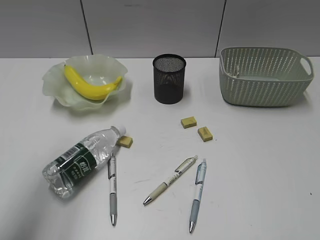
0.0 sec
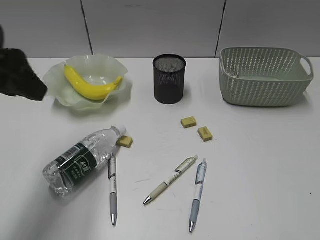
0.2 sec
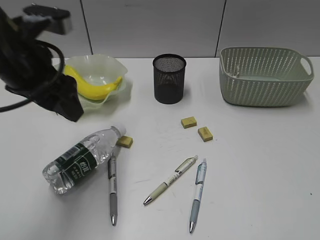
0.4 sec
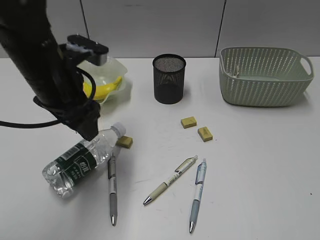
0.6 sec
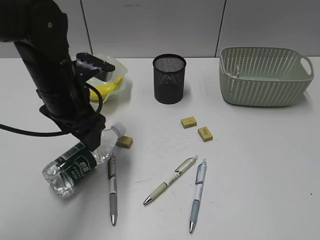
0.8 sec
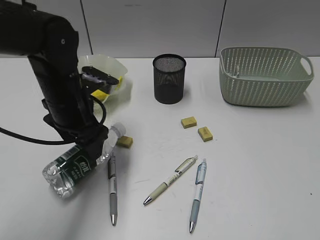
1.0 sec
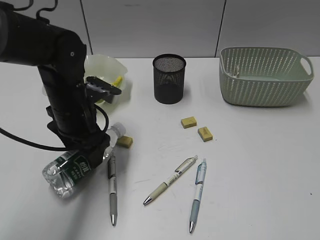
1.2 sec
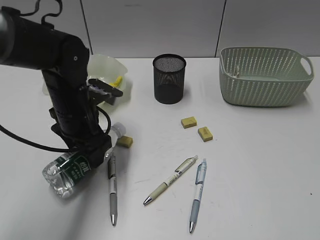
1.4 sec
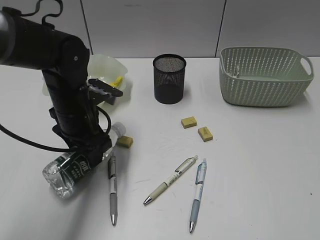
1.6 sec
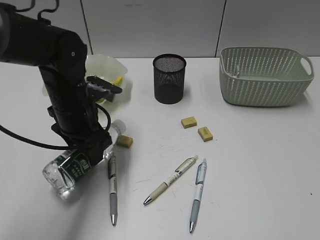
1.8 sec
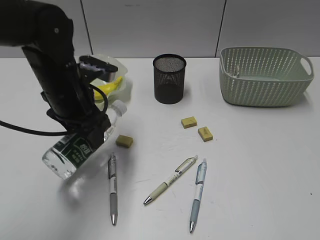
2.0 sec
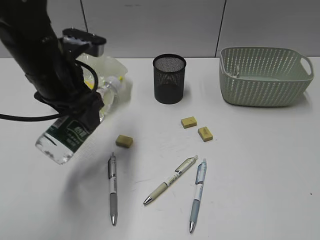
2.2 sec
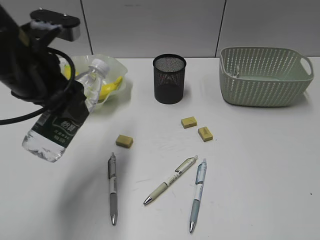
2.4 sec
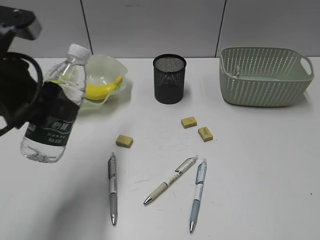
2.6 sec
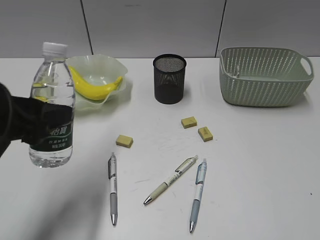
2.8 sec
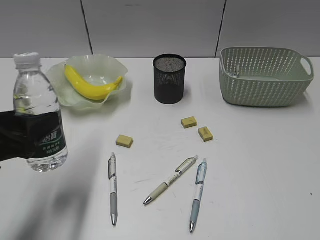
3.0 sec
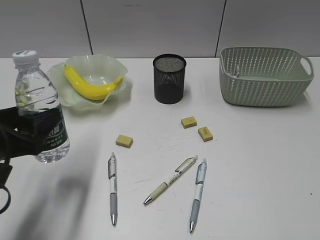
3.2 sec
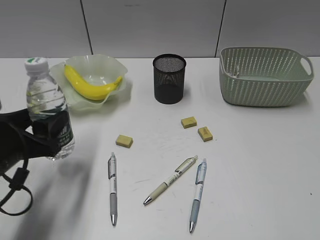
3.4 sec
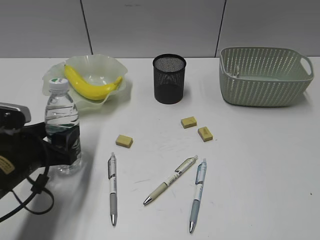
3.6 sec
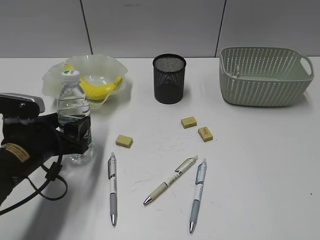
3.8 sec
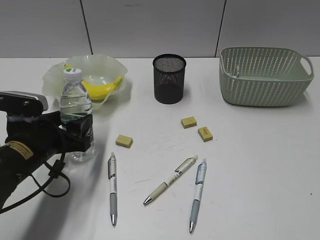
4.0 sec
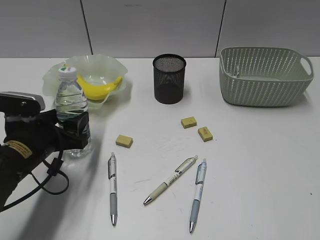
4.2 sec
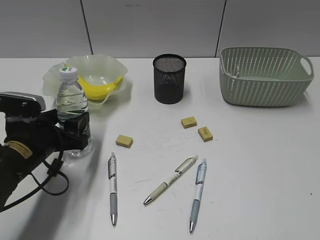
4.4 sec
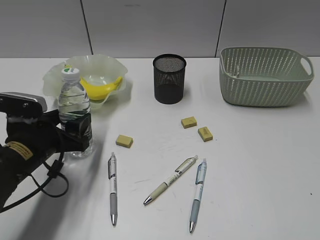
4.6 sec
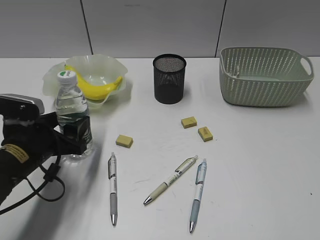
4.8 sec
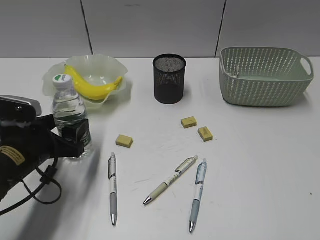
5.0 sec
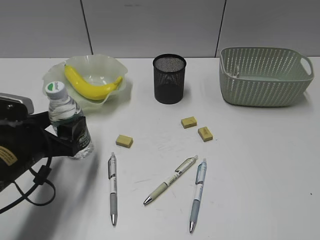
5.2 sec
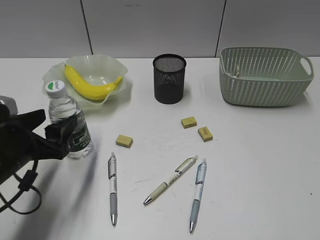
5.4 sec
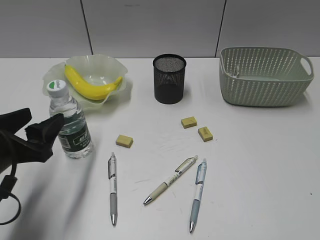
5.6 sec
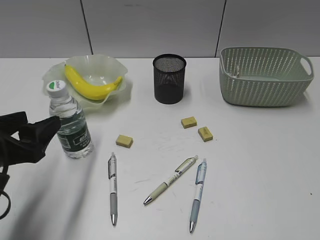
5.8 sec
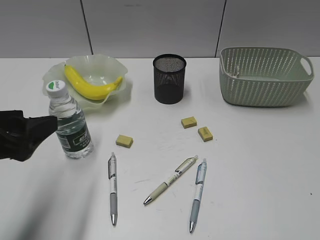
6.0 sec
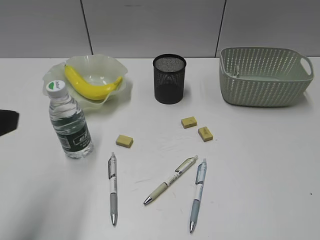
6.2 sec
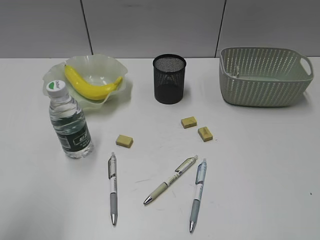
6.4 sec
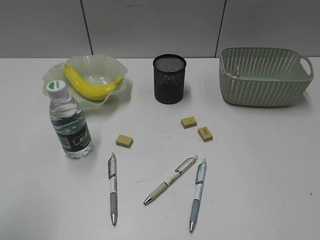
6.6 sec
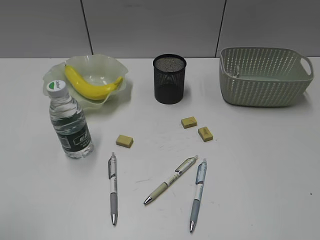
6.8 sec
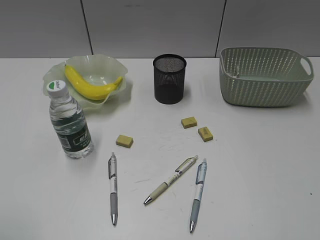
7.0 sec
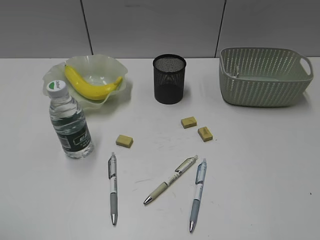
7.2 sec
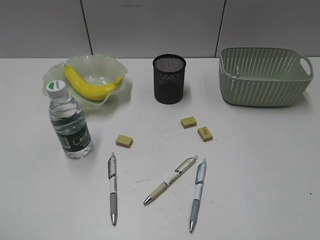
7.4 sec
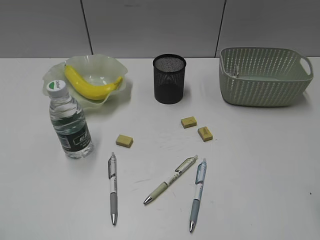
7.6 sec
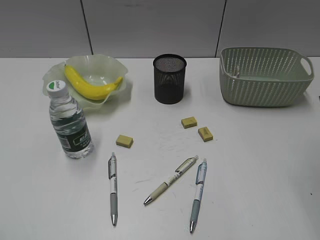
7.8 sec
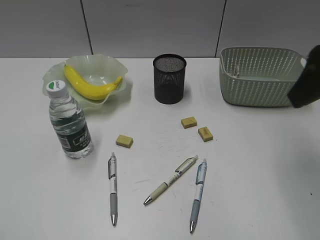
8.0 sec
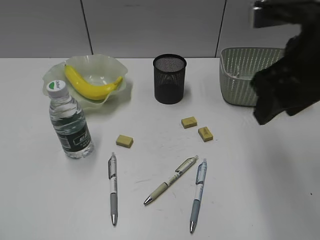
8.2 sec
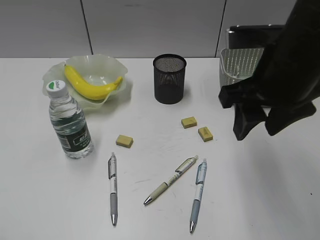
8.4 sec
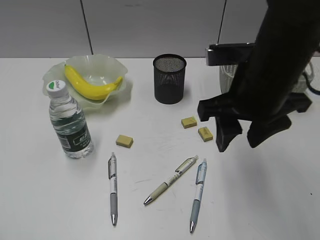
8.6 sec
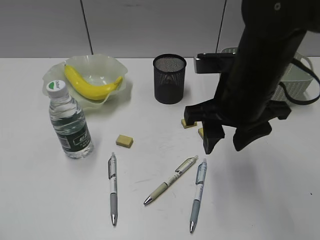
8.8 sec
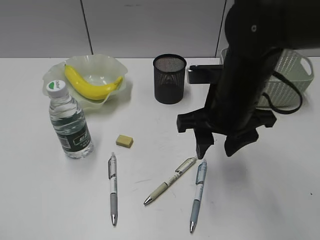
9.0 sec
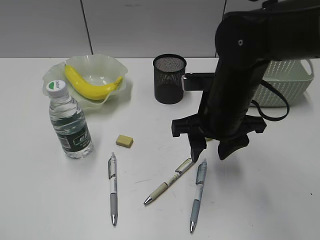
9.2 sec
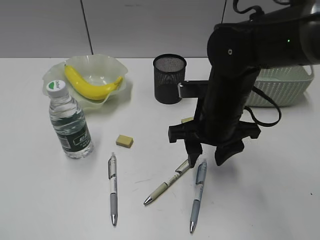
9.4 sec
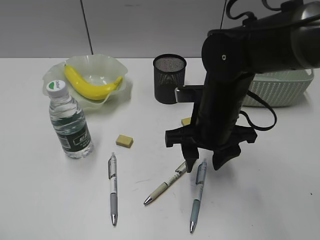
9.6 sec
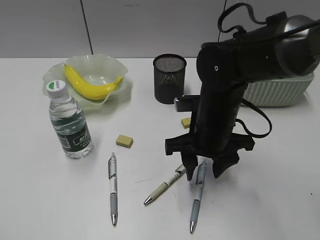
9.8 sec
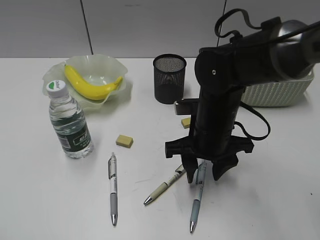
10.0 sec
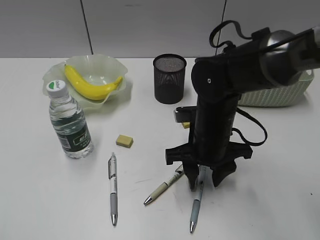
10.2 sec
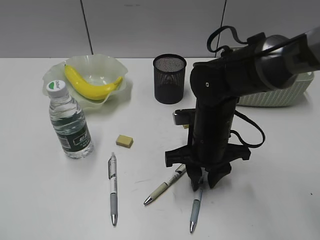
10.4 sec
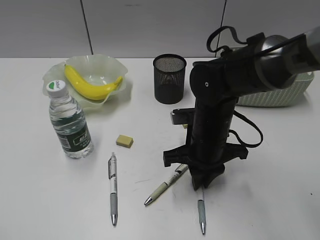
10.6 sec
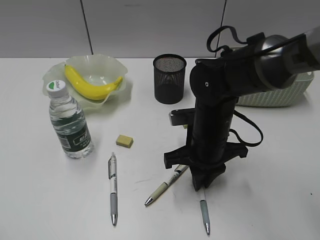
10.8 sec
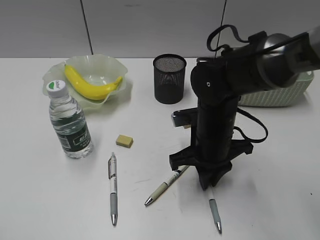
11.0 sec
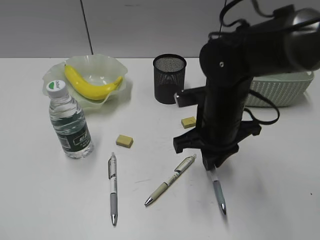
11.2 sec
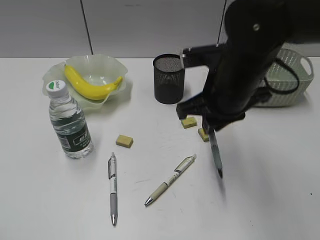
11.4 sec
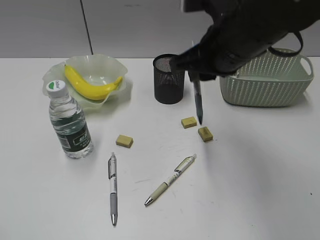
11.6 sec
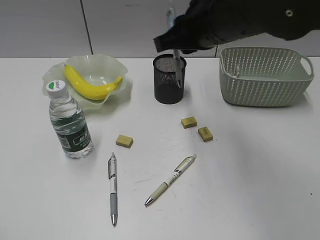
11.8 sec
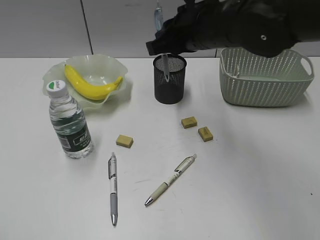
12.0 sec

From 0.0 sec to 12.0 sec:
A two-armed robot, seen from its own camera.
Step, from 1.8 sec to 5.4 sec: Stand the bottle with left gripper.
Step, from 5.6 sec to 10.8 sec: Grasp the blue pen with right gripper.
From 0.0 sec to 1.6 sec: The left gripper shifts some 25 cm downward, forward and to the right.
From 1.6 sec to 3.0 sec: The left gripper travels backward and to the left by about 20 cm.
From 3.0 sec to 4.4 sec: The left gripper shifts roughly 15 cm downward and forward.
From 4.4 sec to 6.0 sec: The left gripper shifts some 15 cm upward and backward.
From 6.0 sec to 7.6 sec: The left gripper travels backward, to the left and upward by about 20 cm.
From 7.6 sec to 9.0 sec: The right gripper heads to the left, forward and downward, covering approximately 30 cm.
From 9.0 sec to 10.4 sec: The right gripper heads downward, covering approximately 10 cm.
From 10.4 sec to 12.0 sec: The right gripper travels upward by about 15 cm, and closes.

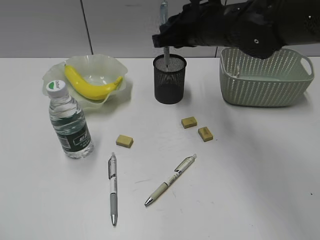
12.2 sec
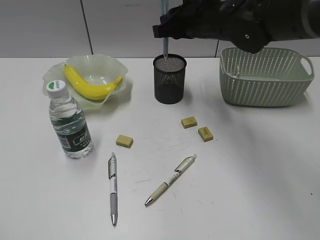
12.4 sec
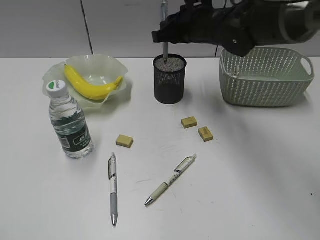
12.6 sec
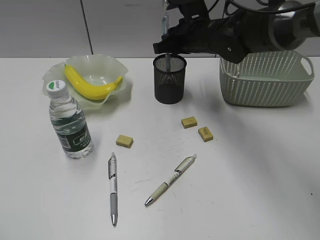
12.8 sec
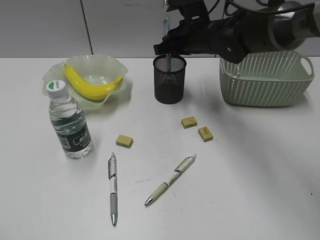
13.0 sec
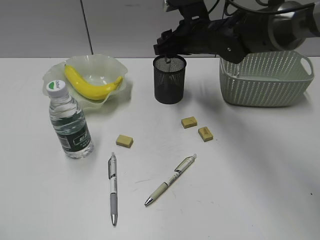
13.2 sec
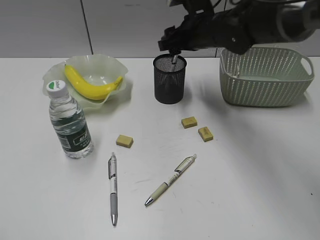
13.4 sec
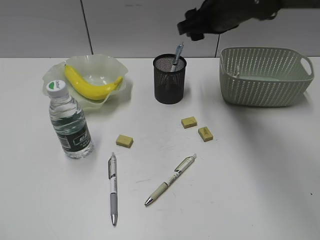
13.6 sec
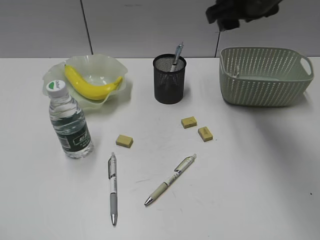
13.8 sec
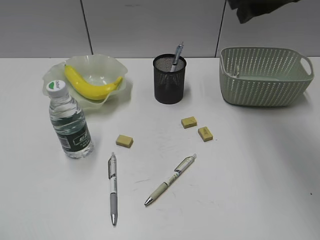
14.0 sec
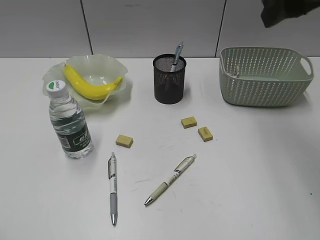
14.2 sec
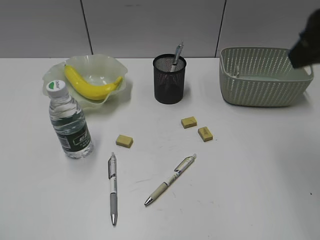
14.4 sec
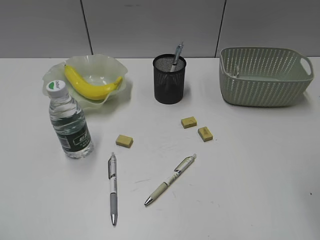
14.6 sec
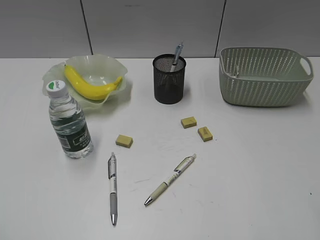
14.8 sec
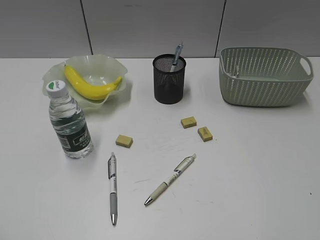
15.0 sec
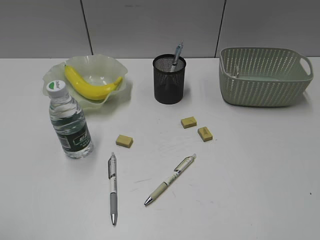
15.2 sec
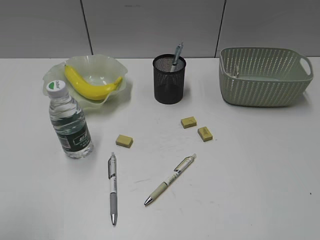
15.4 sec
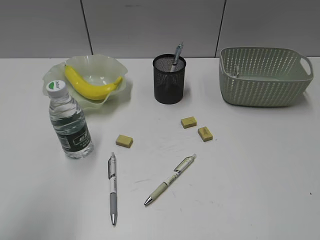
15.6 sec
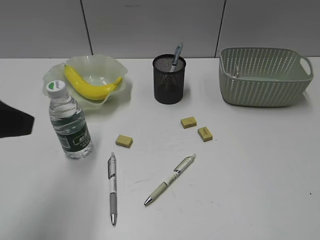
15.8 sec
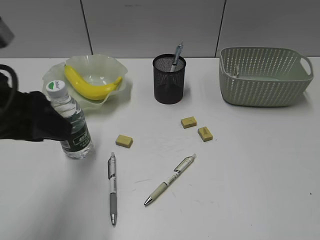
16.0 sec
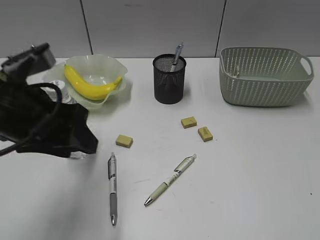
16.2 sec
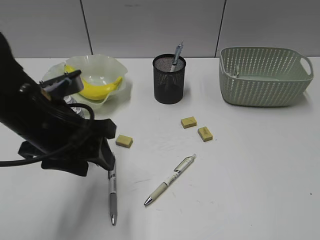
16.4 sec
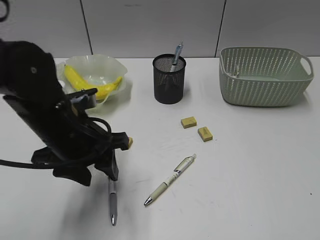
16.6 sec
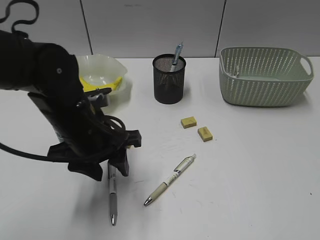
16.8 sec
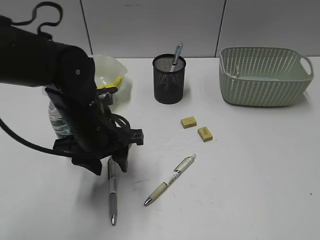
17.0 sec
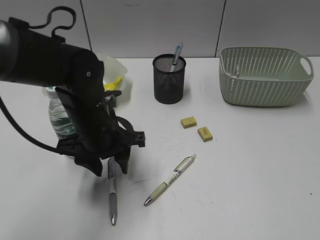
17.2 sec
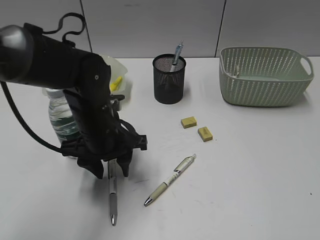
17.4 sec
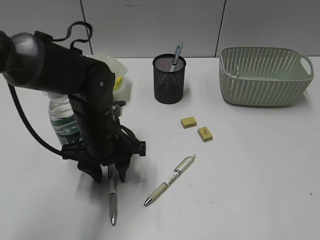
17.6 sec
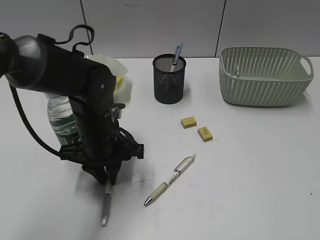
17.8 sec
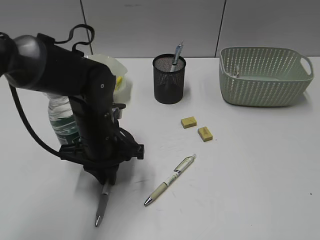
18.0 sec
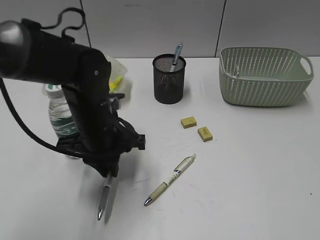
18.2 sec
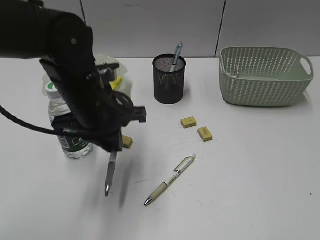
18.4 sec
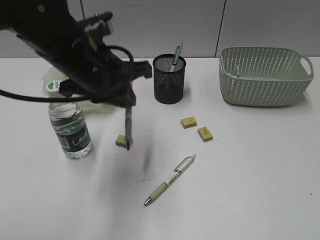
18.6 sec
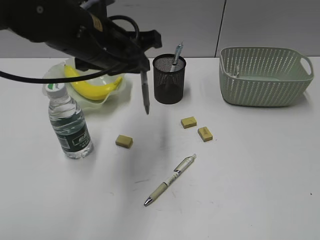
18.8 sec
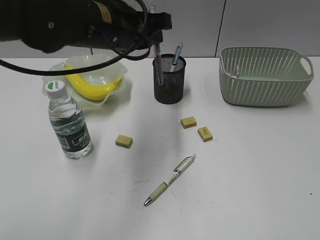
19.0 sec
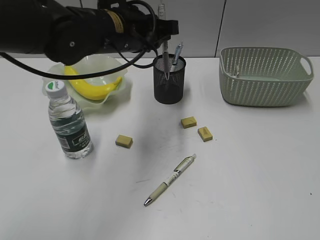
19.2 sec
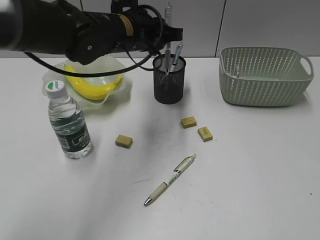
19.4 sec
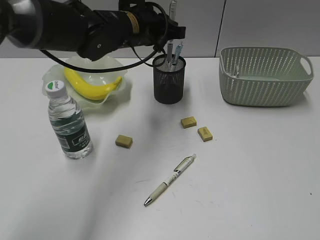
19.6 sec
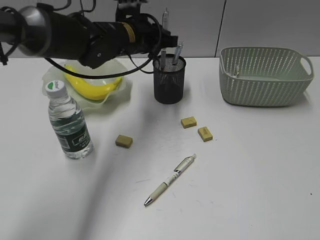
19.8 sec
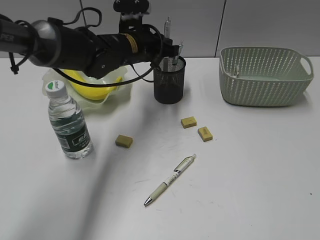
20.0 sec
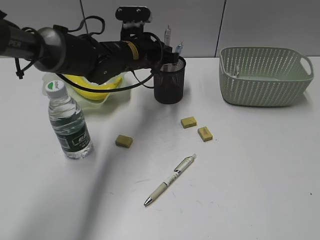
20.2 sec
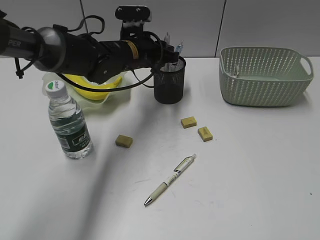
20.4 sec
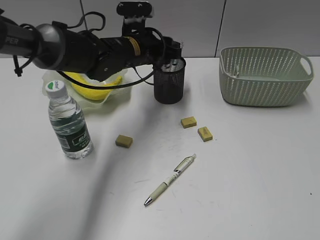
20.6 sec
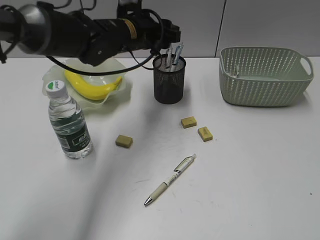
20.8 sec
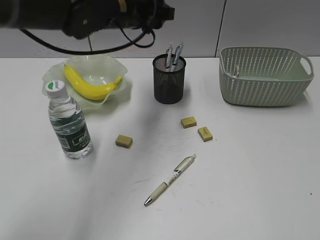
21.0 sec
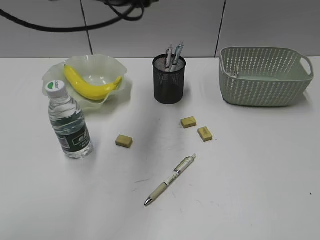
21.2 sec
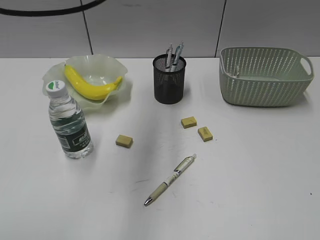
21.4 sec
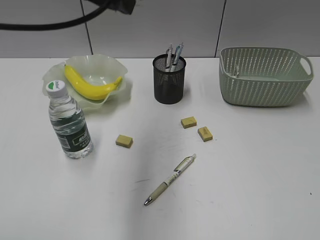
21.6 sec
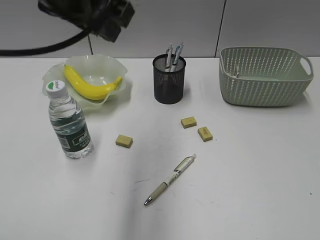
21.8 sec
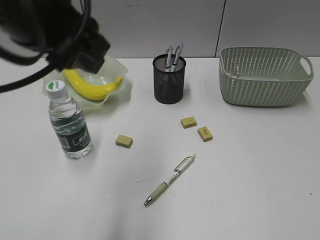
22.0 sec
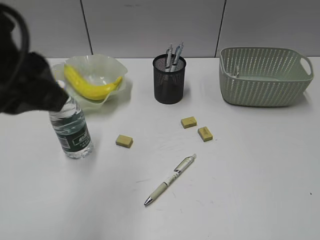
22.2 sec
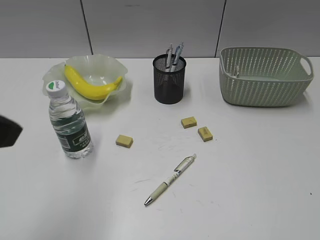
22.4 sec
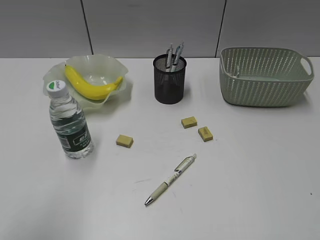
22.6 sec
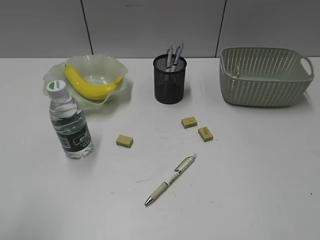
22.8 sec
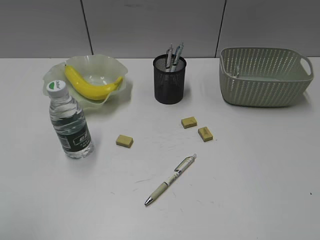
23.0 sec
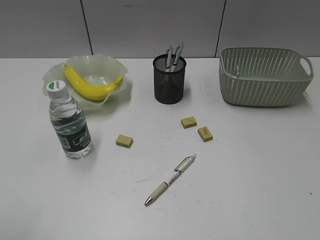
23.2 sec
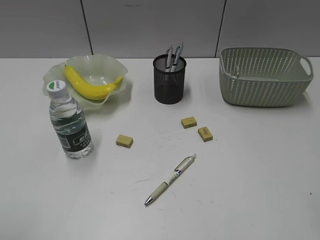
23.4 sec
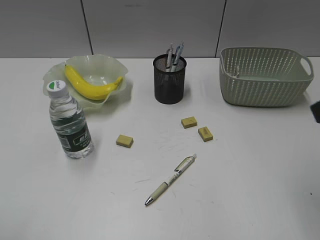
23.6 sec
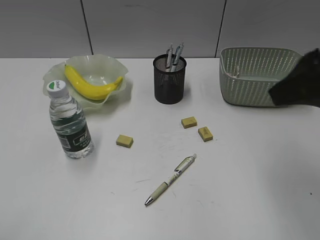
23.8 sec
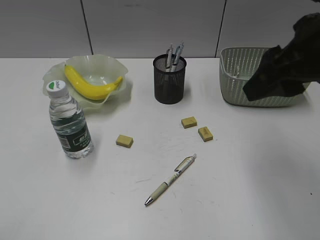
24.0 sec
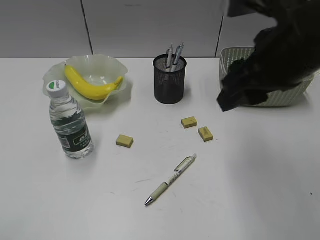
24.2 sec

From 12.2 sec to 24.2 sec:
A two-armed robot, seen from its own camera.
Step, from 13.6 sec to 17.8 sec: Grasp the gray pen with left gripper.
Step, from 18.0 sec to 20.8 sec: Place the gray pen in pen holder with left gripper.
From 12.2 sec to 13.8 sec: The right gripper is displaced to the right and upward by approximately 10 cm, and opens.
From 13.8 sec to 15.2 sec: The right gripper goes some 40 cm backward and to the right.
From 15.2 sec to 16.6 sec: The left gripper goes about 30 cm forward, to the right and downward.
From 16.6 sec to 18.2 sec: The left gripper changes place by roughly 5 cm, and closes its fingers.
From 18.2 sec to 19.8 sec: The left gripper moves forward and upward, roughly 15 cm.
From 19.8 sec to 21.2 sec: The left gripper shifts about 10 cm upward, and opens its fingers.
From 21.2 sec to 22.6 sec: The left gripper goes about 35 cm backward and to the left.
From 22.6 sec to 24.2 sec: The right gripper goes about 30 cm forward and to the left.
